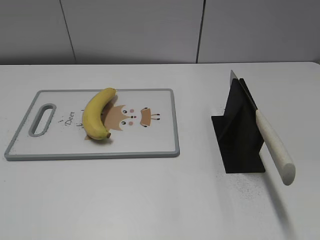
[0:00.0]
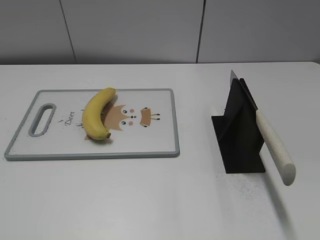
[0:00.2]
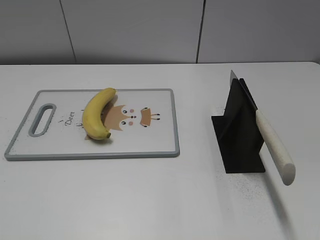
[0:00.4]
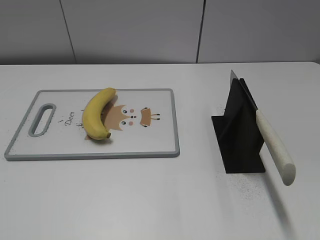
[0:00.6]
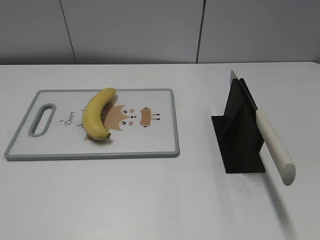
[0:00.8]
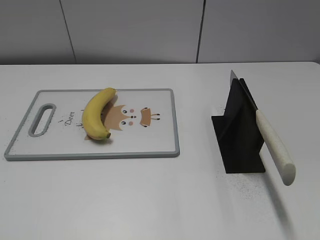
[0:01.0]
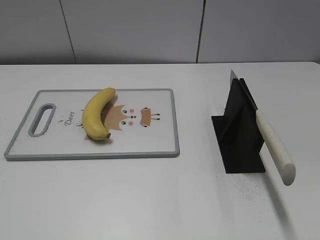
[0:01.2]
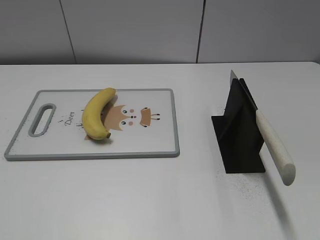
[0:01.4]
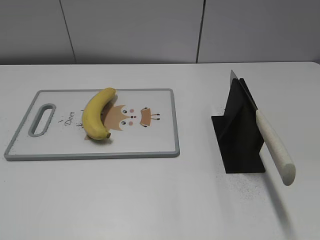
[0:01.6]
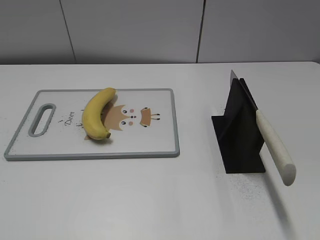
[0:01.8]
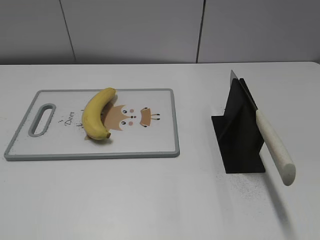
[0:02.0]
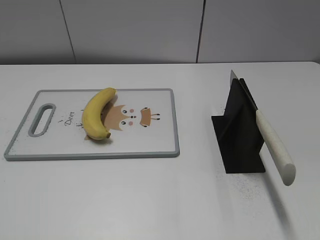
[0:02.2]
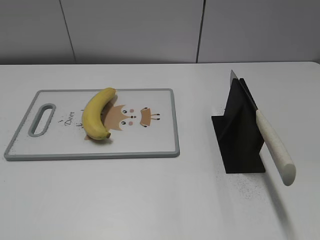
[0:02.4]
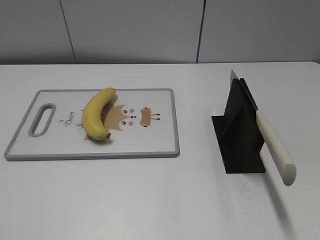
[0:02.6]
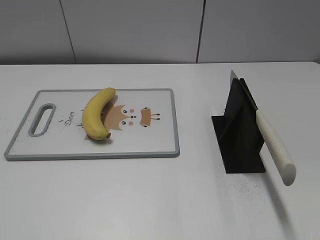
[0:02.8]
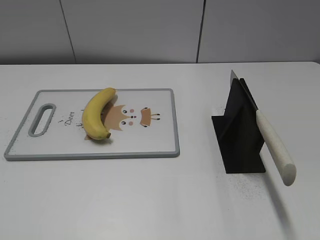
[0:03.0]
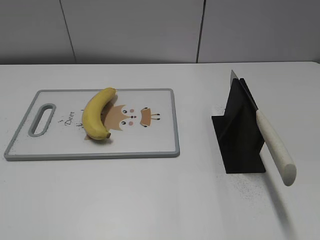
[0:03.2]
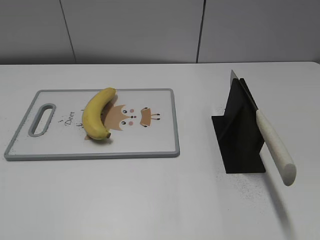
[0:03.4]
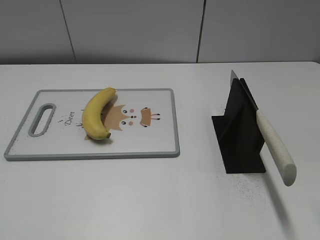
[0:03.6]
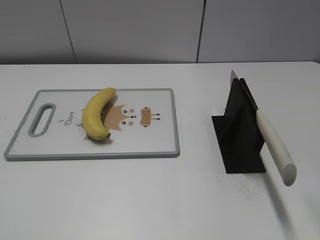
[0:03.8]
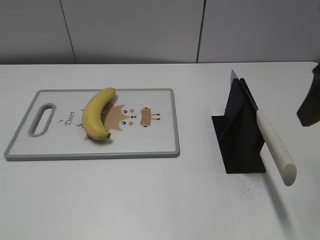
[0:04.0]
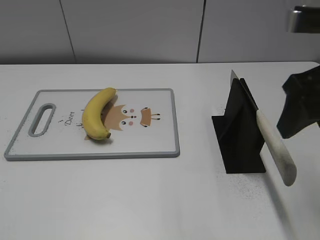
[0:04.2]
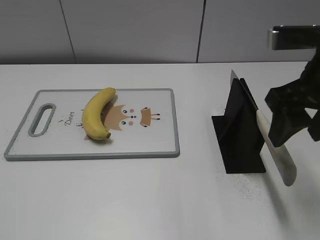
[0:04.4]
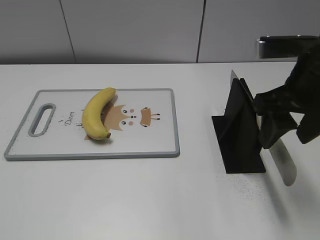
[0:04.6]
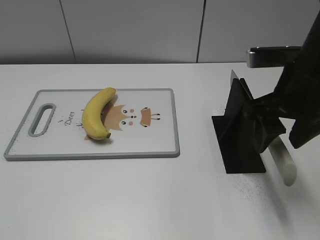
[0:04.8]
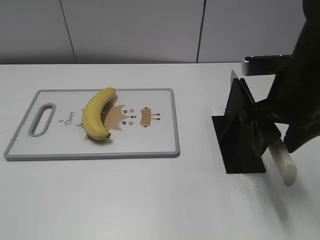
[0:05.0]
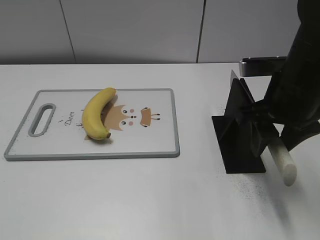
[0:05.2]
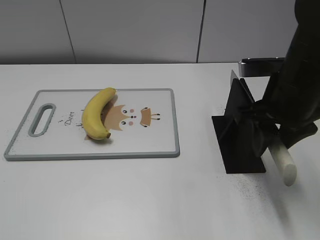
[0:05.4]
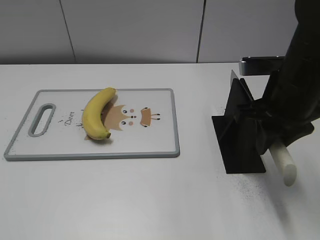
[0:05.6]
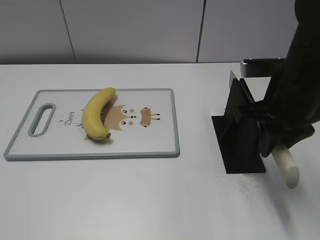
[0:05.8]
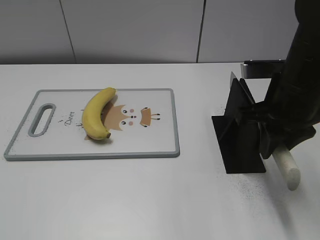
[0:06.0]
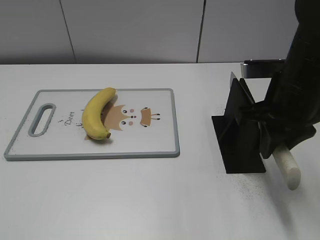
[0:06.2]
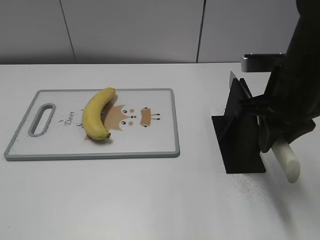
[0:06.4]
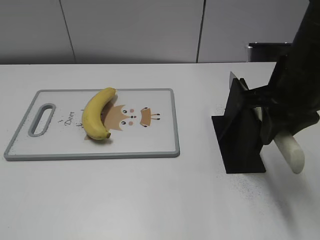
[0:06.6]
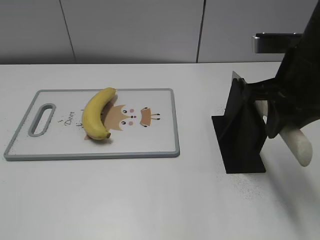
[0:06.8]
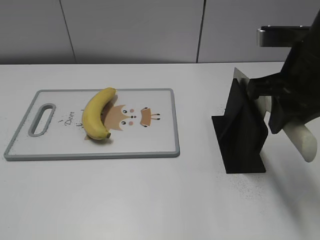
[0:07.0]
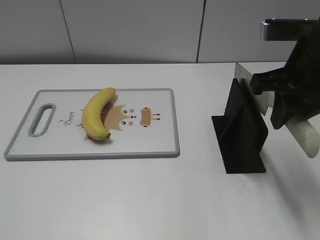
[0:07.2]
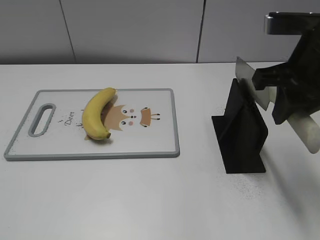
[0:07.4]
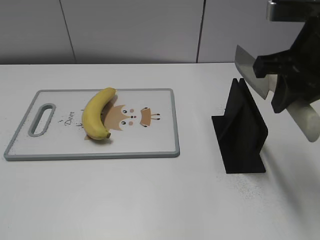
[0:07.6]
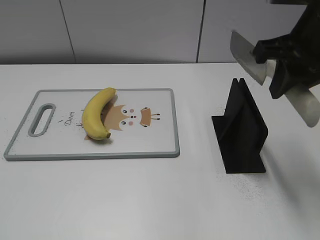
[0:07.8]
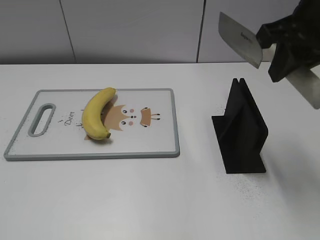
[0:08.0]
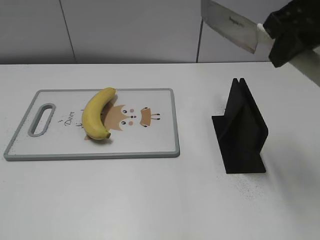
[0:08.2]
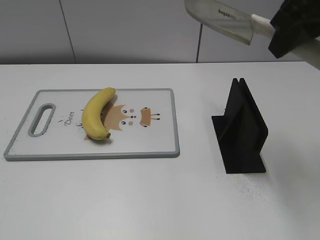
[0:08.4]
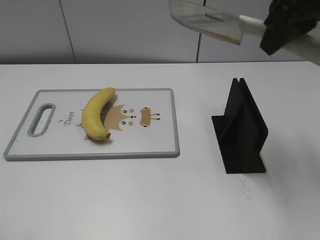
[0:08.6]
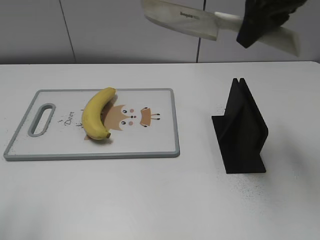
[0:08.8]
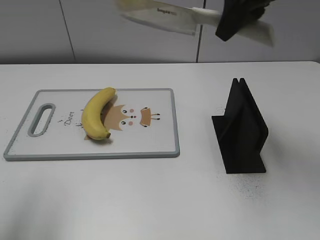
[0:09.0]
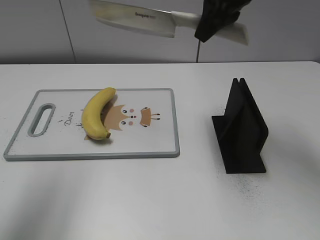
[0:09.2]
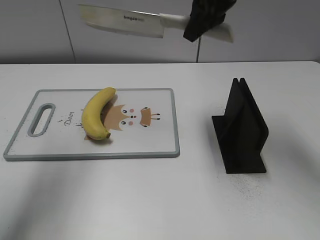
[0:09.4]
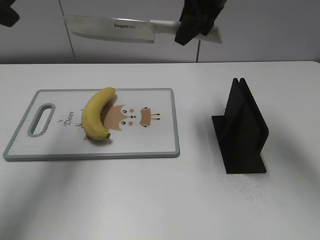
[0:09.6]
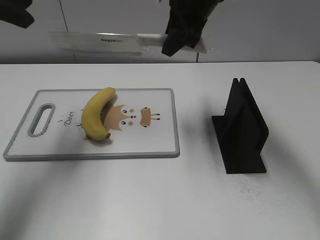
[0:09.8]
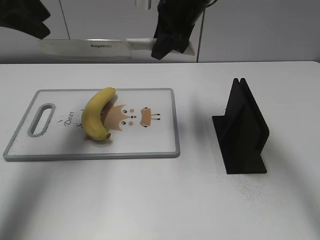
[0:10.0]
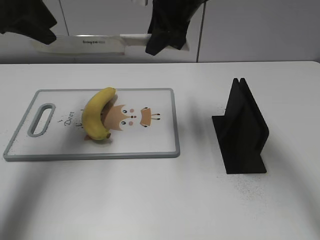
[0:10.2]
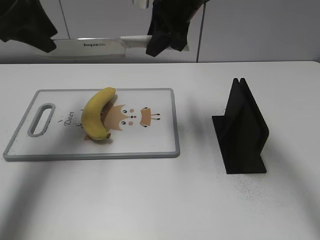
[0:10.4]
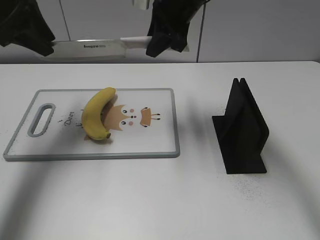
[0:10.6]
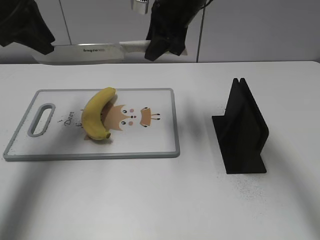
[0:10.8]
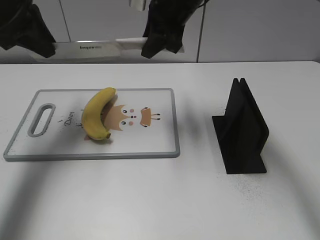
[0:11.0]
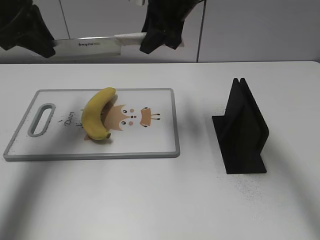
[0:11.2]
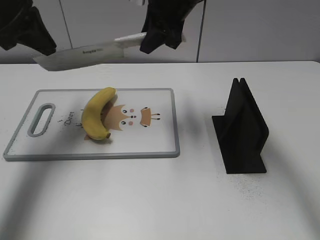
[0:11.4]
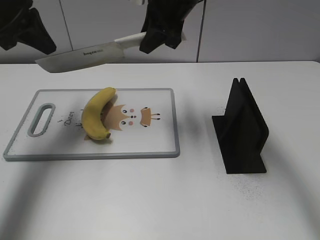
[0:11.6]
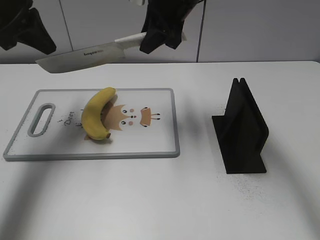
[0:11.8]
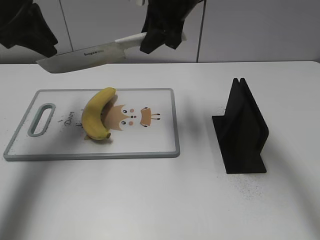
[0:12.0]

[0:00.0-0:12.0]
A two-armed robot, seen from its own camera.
Task of the whole recording: cut plastic banana.
Step, 0:00.0 to 0:07.0: Grab the knife handle with your right hand.
0:03.0 to 0:04.4: The right gripper is displaced forward and to the left by approximately 20 cm.
0:04.4 to 0:06.0: The right gripper shifts some 5 cm downward, and closes.
0:06.0 to 0:07.6: The right gripper heads upward, covering about 5 cm.
0:07.6 to 0:09.0: The left gripper shifts roughly 20 cm forward and upward. Meanwhile the right gripper travels forward and upward by approximately 10 cm.
0:09.0 to 0:10.4: The left gripper is displaced forward by roughly 25 cm; the right gripper shifts approximately 15 cm to the left, forward and downward.
0:10.4 to 0:12.0: The left gripper closes, then opens again.

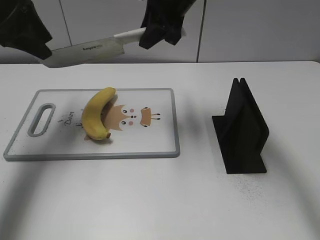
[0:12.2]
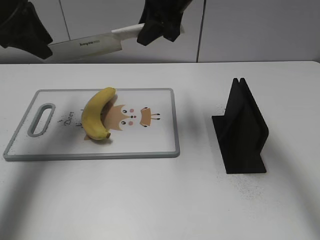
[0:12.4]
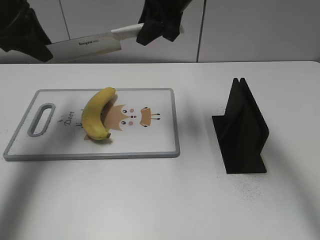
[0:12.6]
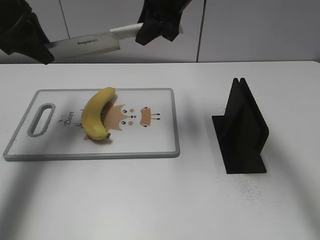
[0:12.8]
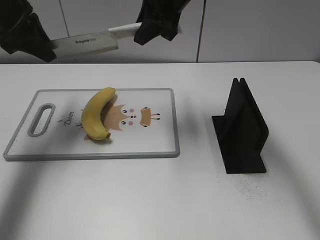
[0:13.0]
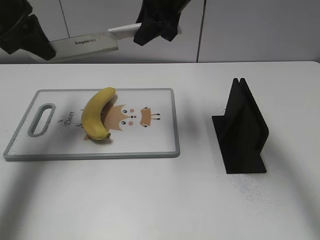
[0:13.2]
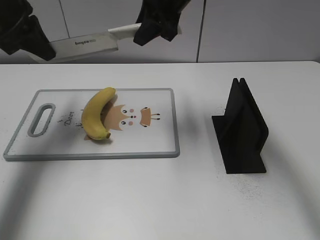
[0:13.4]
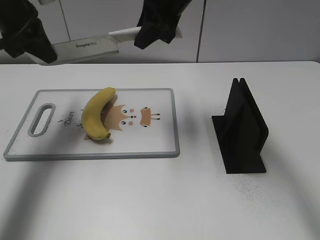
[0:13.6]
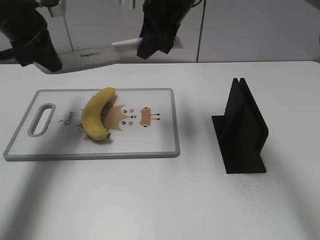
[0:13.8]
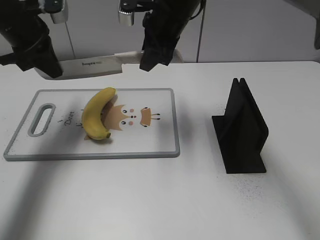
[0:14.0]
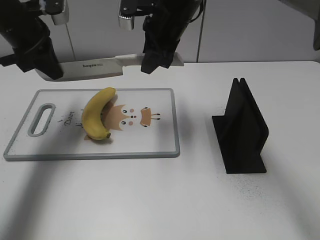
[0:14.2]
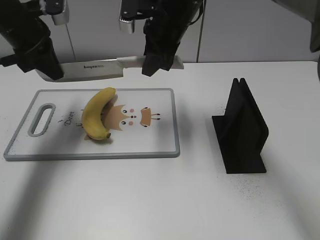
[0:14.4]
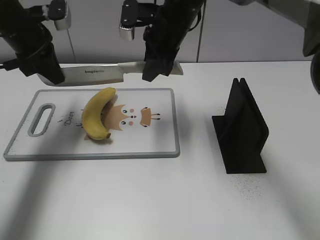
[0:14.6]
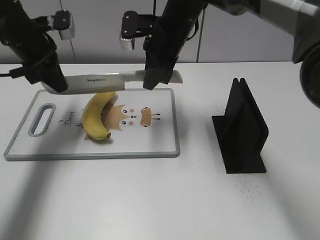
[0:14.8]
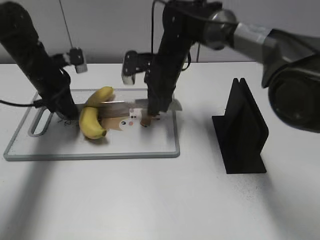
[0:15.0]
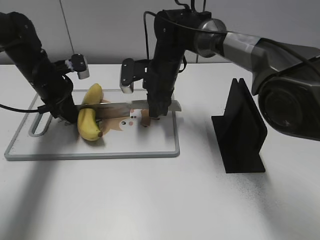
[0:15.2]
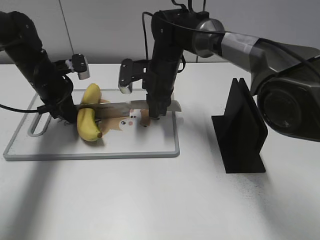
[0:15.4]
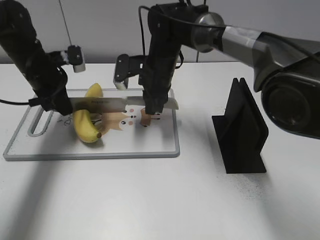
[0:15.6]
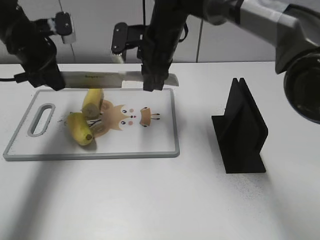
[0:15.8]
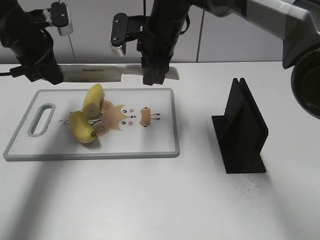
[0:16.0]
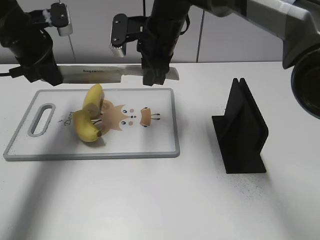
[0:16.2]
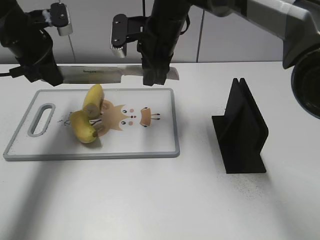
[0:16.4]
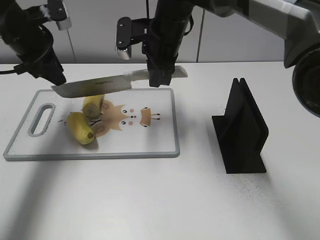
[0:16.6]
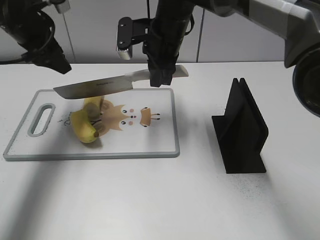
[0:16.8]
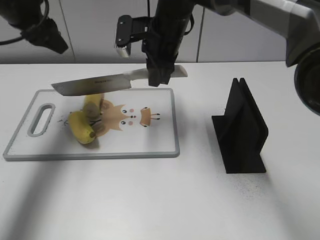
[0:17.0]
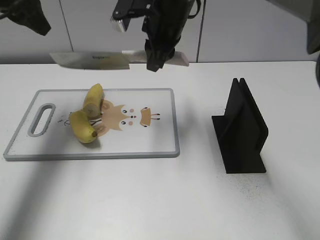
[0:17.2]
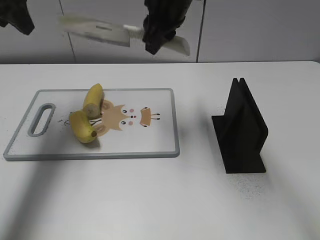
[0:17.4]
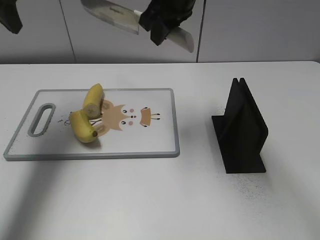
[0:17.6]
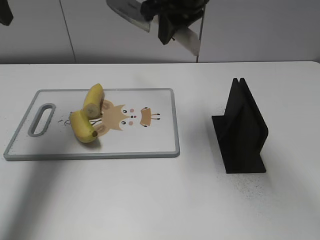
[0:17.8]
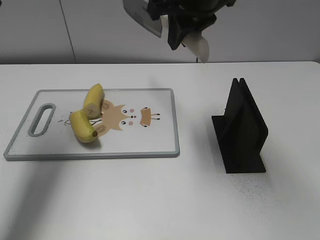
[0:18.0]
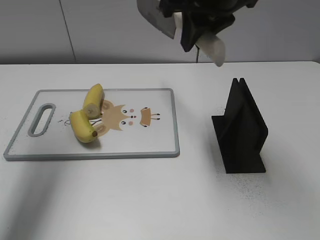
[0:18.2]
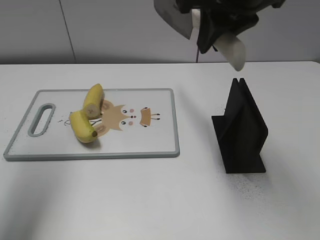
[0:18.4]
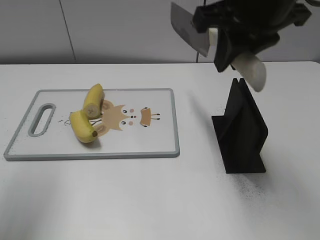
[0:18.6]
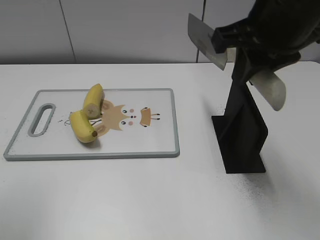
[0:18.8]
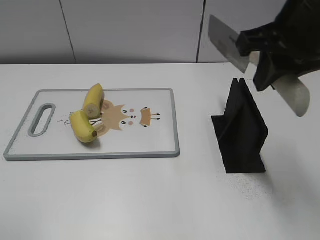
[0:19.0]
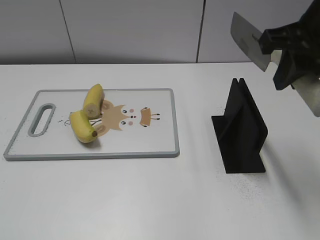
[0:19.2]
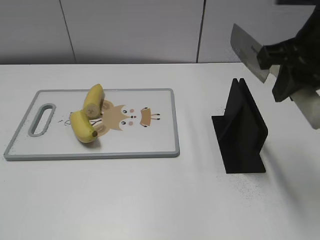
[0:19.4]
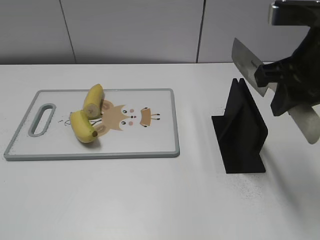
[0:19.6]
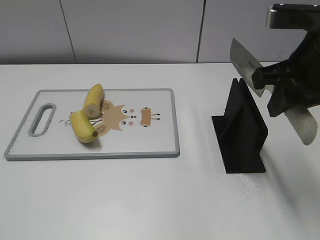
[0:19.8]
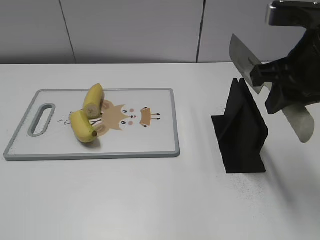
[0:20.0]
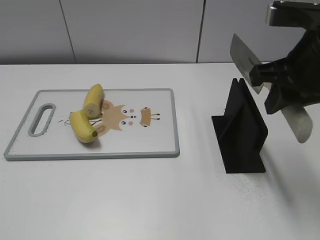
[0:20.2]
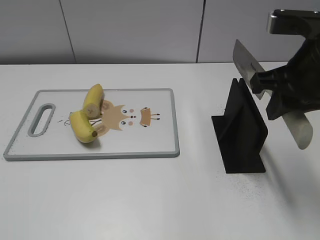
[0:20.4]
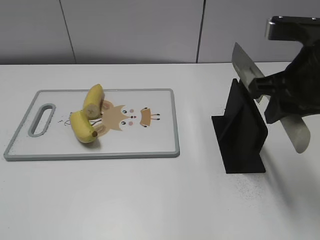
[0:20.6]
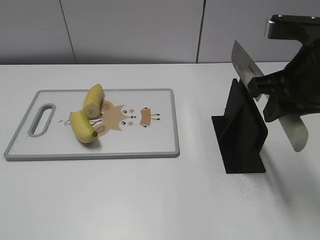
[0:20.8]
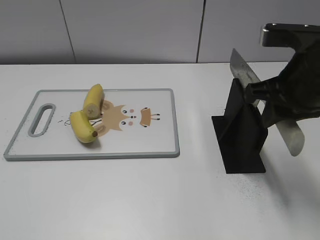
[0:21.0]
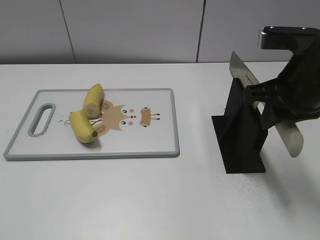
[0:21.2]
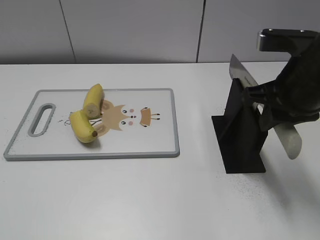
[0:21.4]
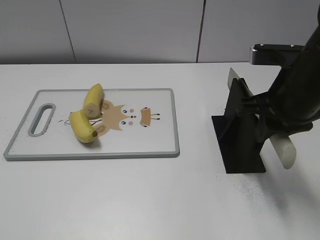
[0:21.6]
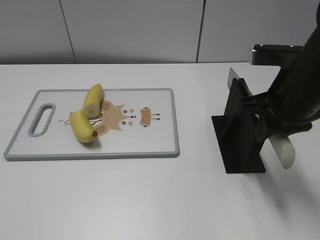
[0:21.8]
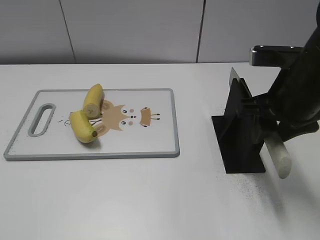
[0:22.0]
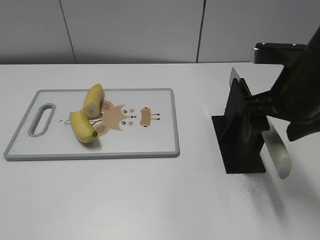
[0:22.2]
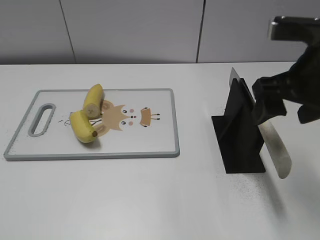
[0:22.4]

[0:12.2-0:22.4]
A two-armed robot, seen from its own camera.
Task of the whole recording: cut plastic banana.
Step, 0:12.2 to 0:16.6: Lift the knife with your right hand.
Step, 0:16.8 to 0:19.0: Cut the banana with your right hand.
Step, 0:19.4 to 0:20.6: Lift the knife with your right hand.
0:12.2 to 0:13.6: The left gripper closes.
0:13.6 to 0:15.2: Both grippers move downward, about 20 cm.
0:15.2 to 0:16.6: The grippers both shift upward by roughly 10 cm. The left gripper opens.
0:16.6 to 0:18.0: Both grippers travel together upward and backward, roughly 15 cm. The left gripper opens.
0:18.0 to 0:19.4: The left gripper moves backward, about 30 cm. The right gripper moves to the right and backward, some 15 cm.
0:19.4 to 0:21.0: The right gripper travels downward by roughly 5 cm.
0:21.0 to 0:22.4: The right gripper opens its fingers.
